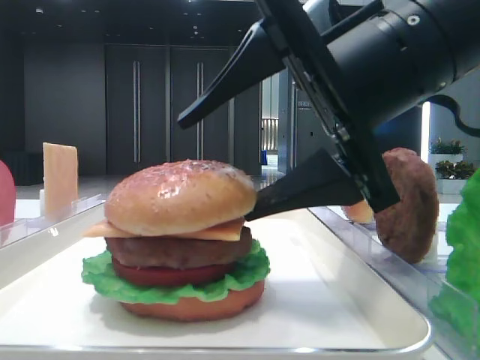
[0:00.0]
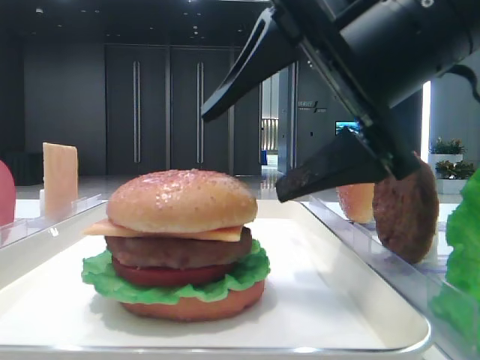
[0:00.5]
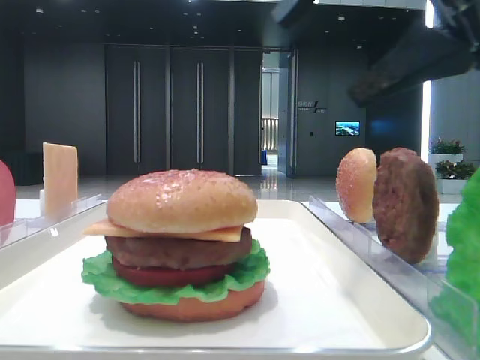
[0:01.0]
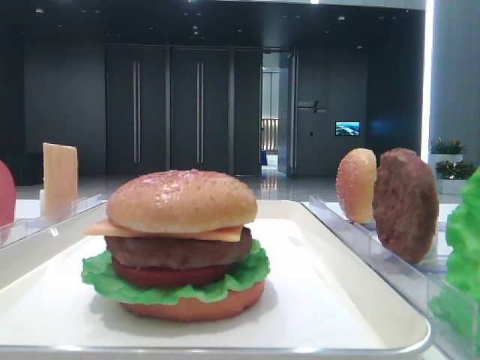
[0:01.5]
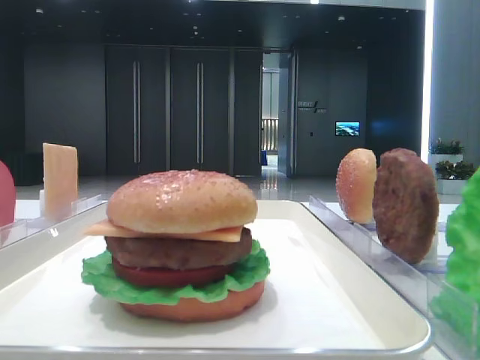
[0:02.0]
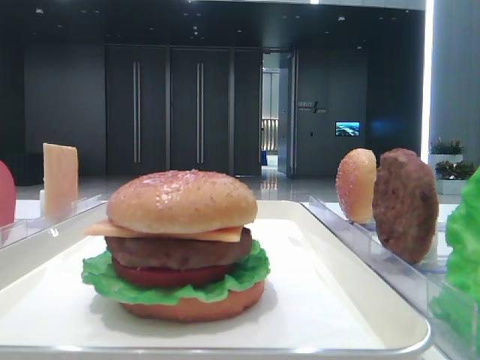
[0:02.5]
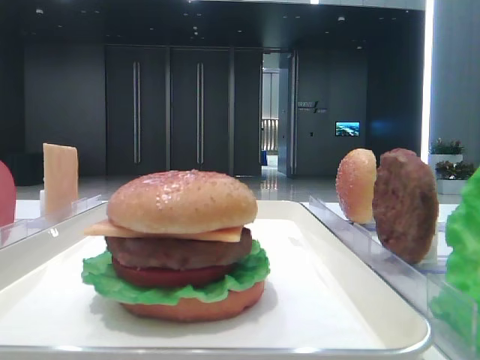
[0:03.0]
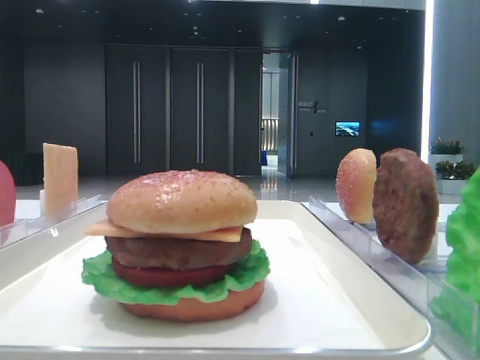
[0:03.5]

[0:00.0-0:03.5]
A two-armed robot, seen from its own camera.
0:00.0 to 0:02.0: The right gripper moves to the right, upward and backward, approximately 25 cm.

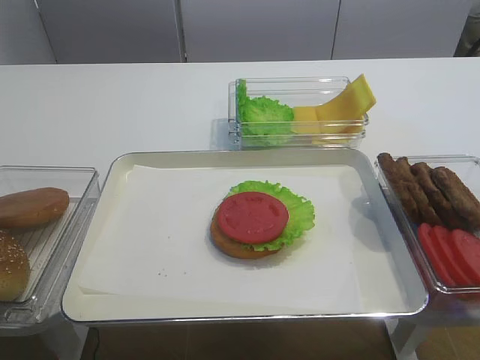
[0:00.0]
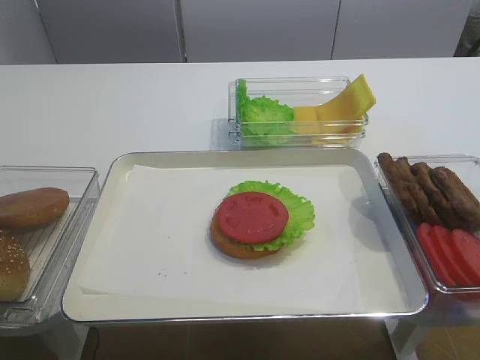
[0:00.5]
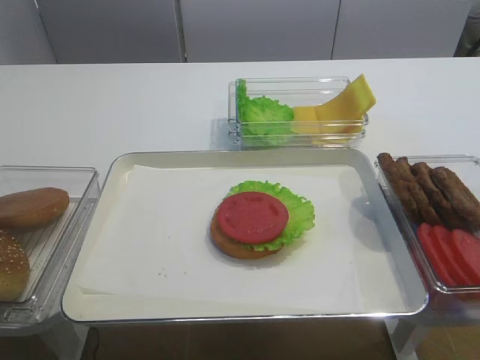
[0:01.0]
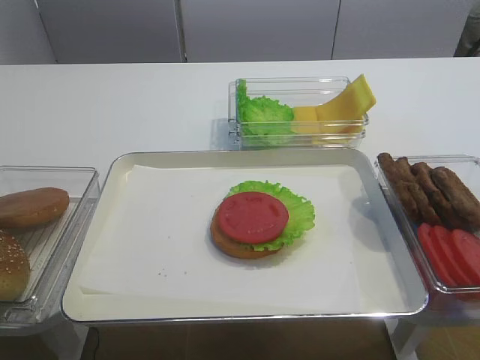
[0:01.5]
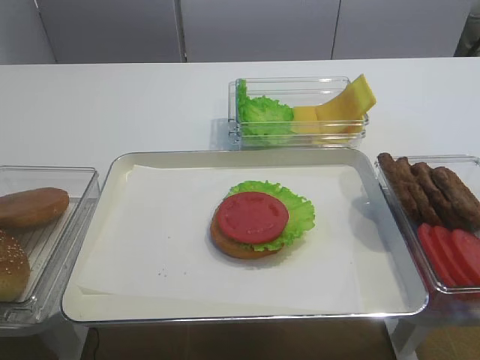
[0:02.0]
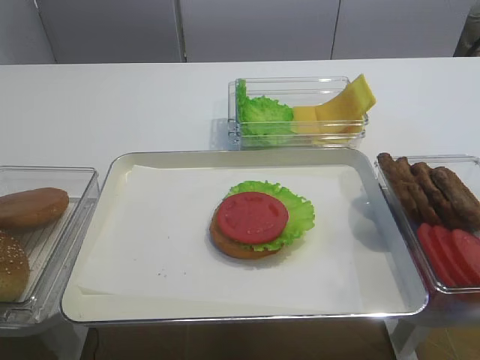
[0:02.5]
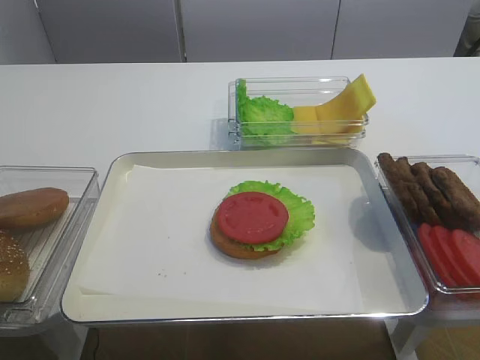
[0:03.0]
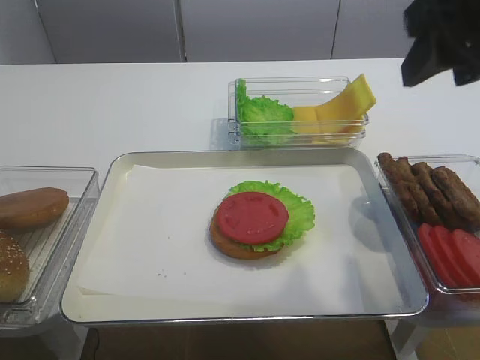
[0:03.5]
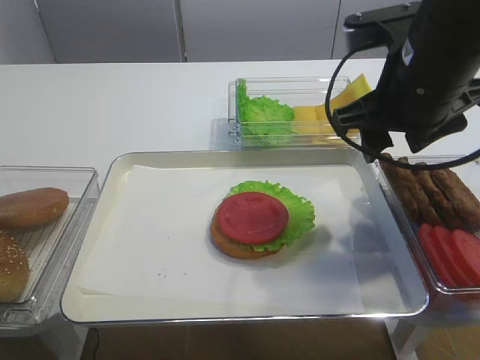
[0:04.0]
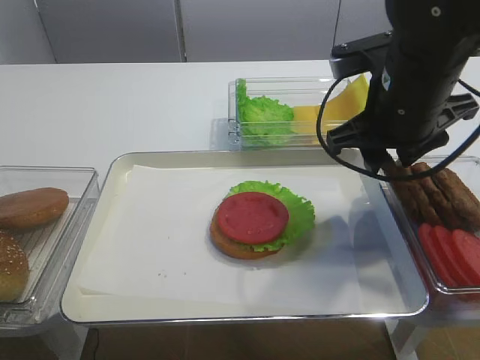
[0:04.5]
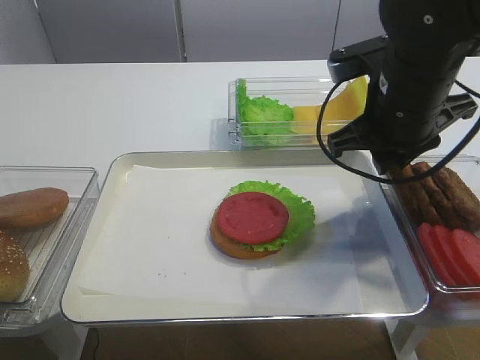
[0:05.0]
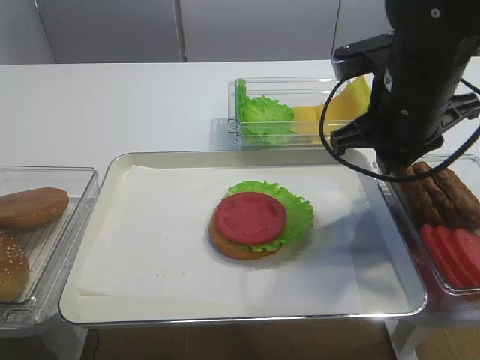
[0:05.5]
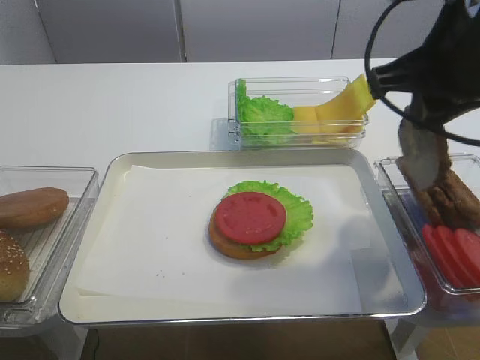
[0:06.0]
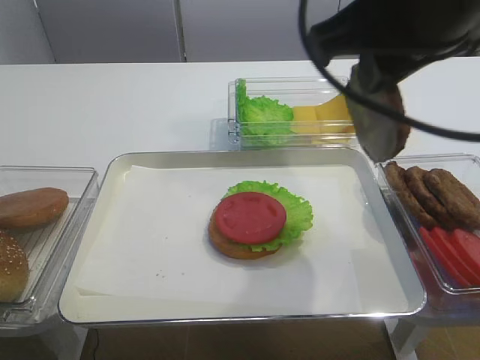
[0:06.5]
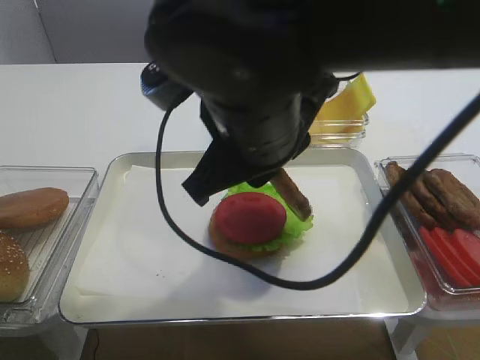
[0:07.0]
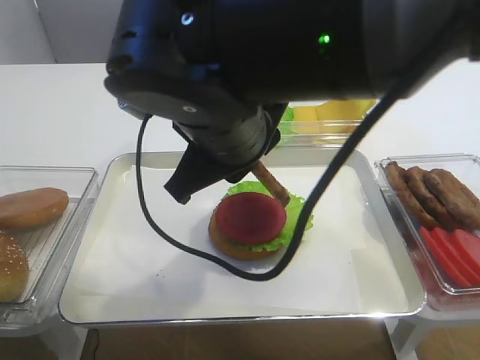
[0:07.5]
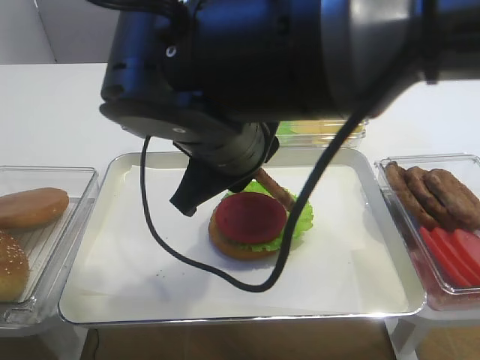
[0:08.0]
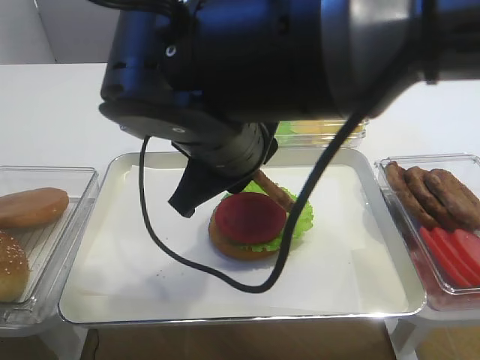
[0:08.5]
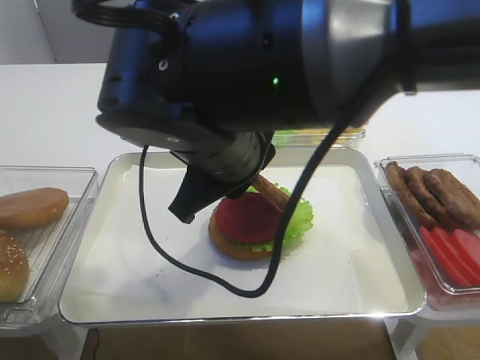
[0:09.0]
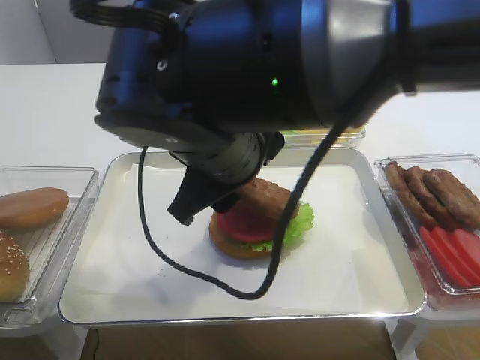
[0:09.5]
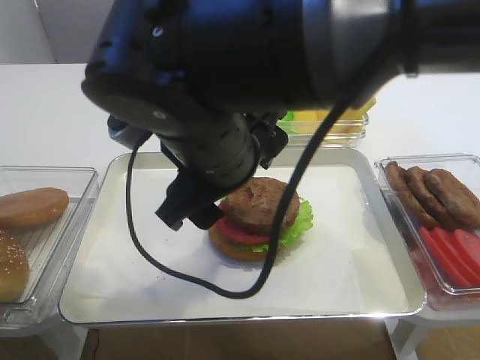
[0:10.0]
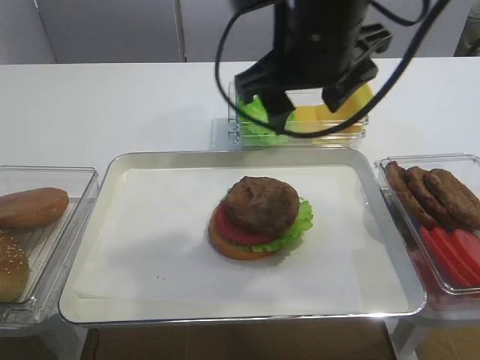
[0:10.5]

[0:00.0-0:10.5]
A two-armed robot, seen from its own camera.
Step, 0:00.0 to 0:05.5: Pick up the cutlet with the right gripper.
Step, 0:06.0 to 0:09.5: Place the cutlet on the tomato slice with the right gripper.
0:02.0 to 0:04.0: The right gripper is displaced forward and to the left by approximately 30 cm.
0:04.0 to 0:06.5: The right gripper moves upward and backward, about 10 cm, and closes its fingers.
0:06.5 to 0:08.5: The right gripper goes approximately 15 cm to the left and downward.
0:08.5 to 0:10.5: The right gripper shifts some 10 cm to the right, upward and forward, and opens its fingers.

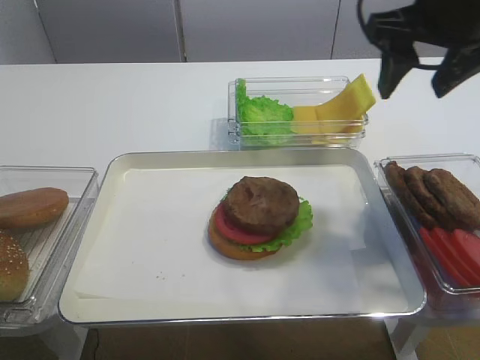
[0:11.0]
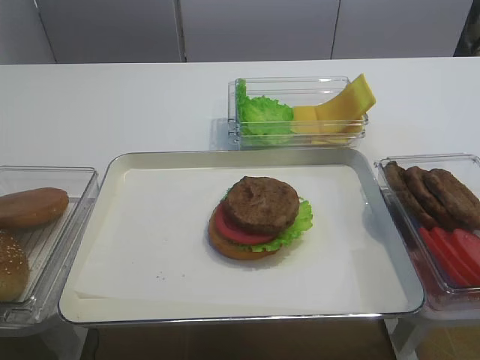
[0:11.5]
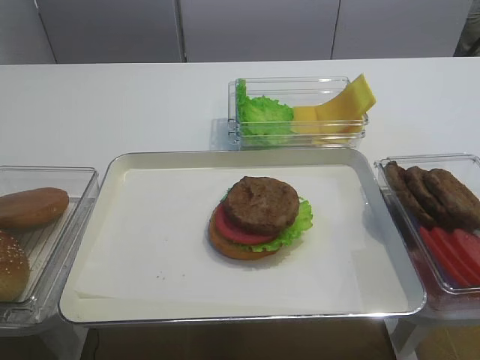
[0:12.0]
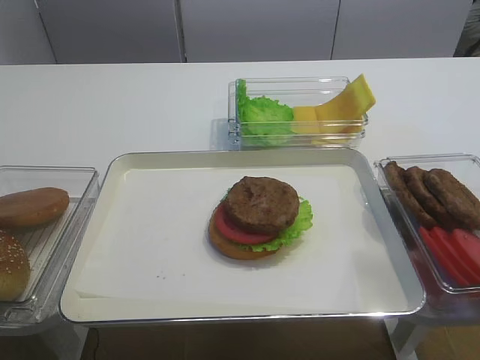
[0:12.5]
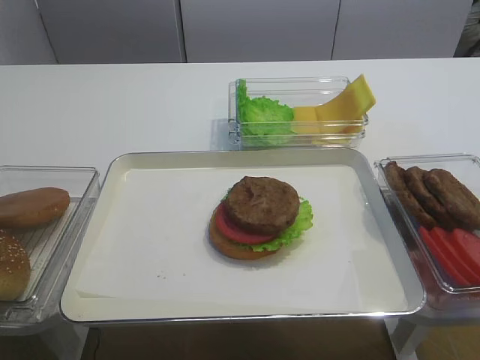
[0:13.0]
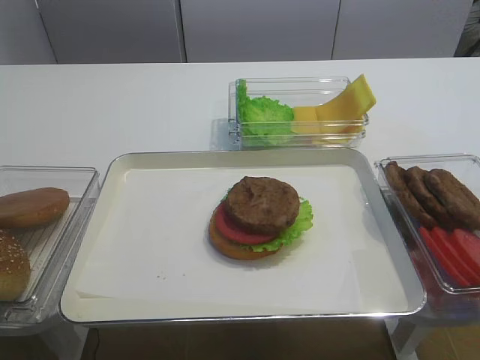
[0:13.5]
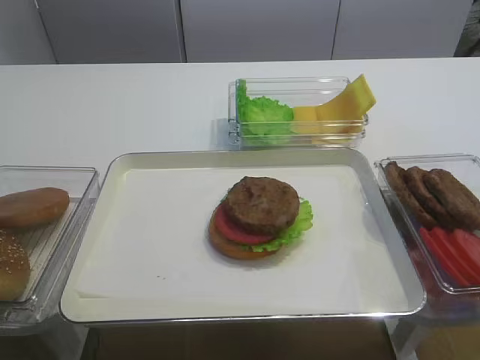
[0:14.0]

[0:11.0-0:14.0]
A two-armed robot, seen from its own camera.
0:11.0 to 0:12.5: The right gripper travels backward by some 30 cm.

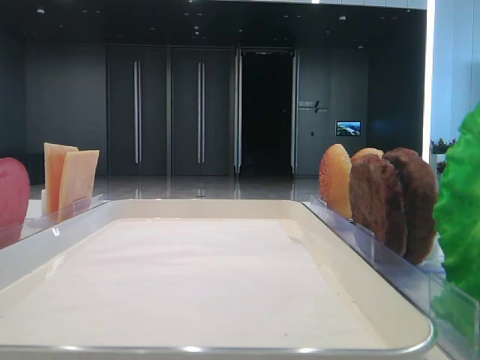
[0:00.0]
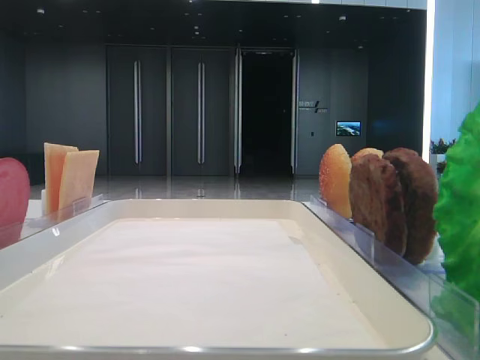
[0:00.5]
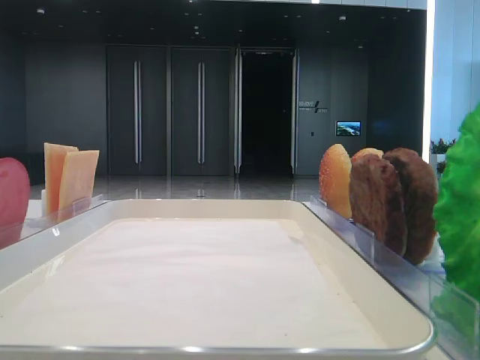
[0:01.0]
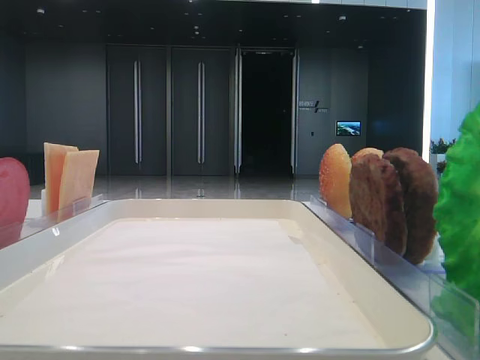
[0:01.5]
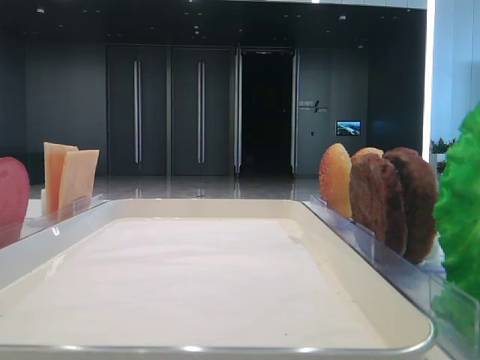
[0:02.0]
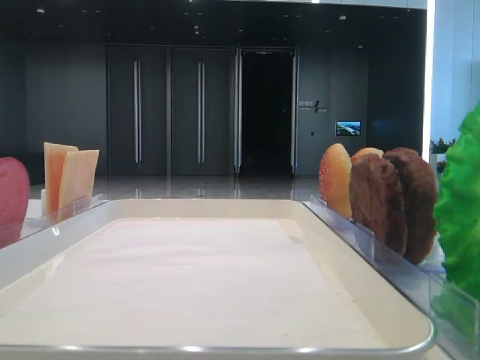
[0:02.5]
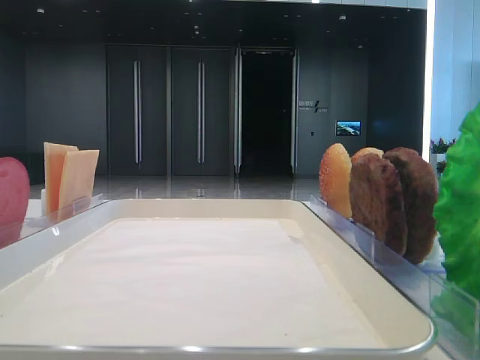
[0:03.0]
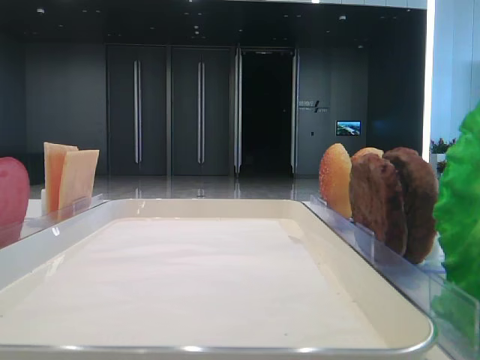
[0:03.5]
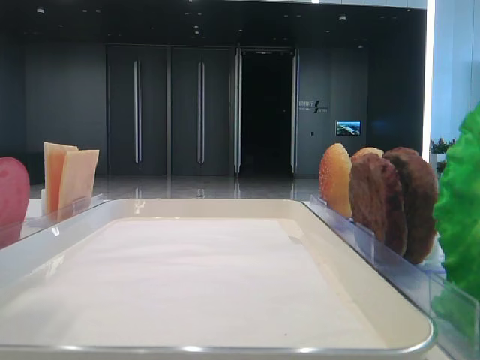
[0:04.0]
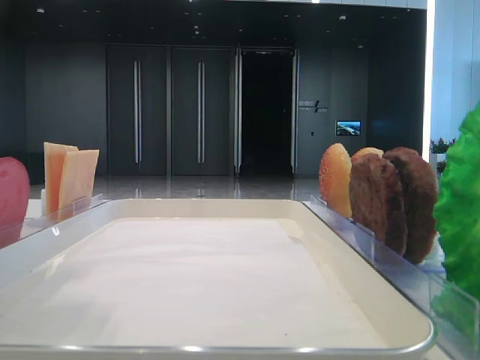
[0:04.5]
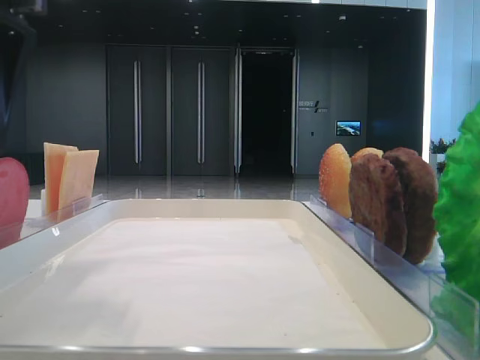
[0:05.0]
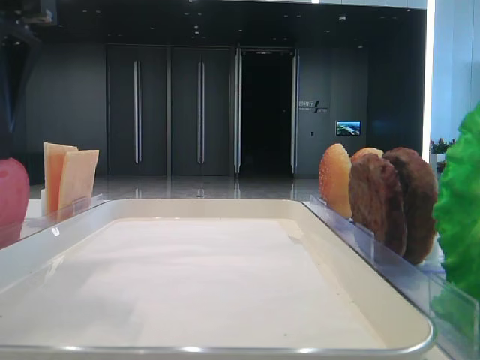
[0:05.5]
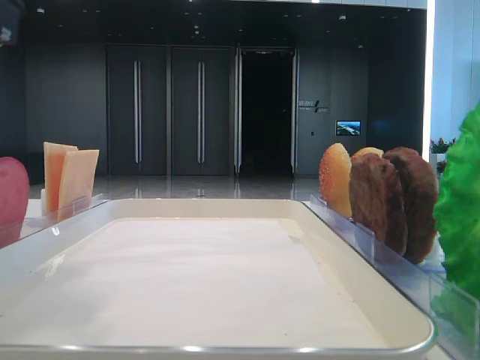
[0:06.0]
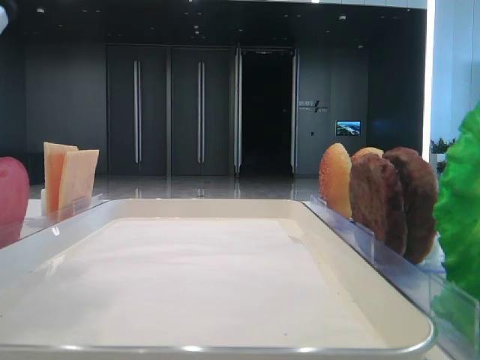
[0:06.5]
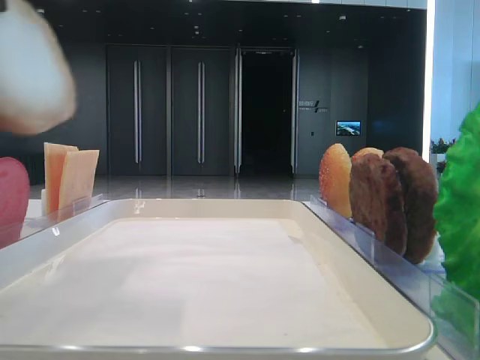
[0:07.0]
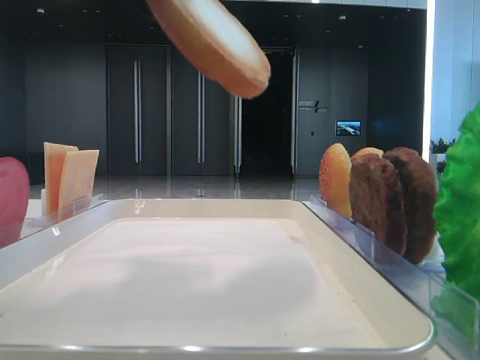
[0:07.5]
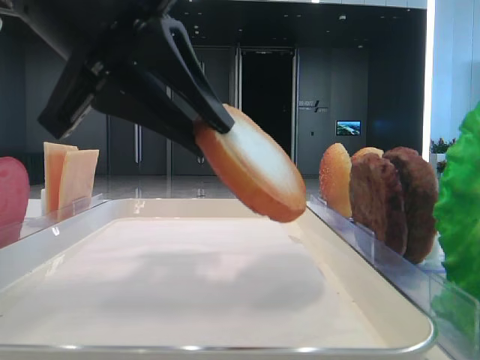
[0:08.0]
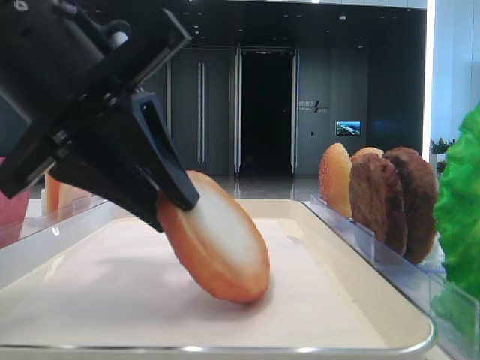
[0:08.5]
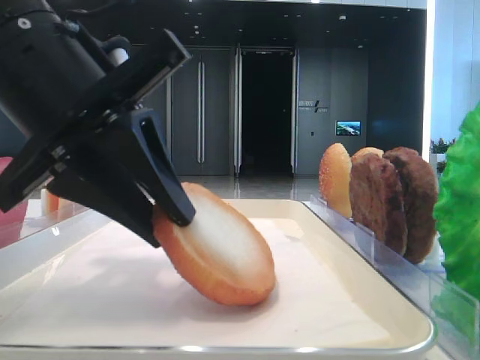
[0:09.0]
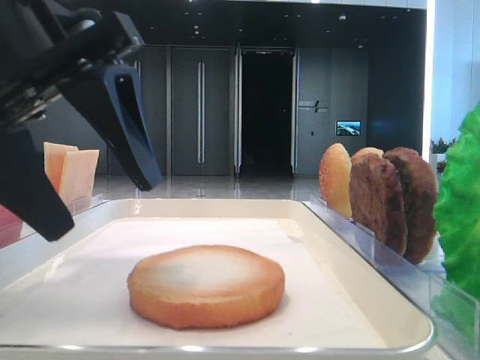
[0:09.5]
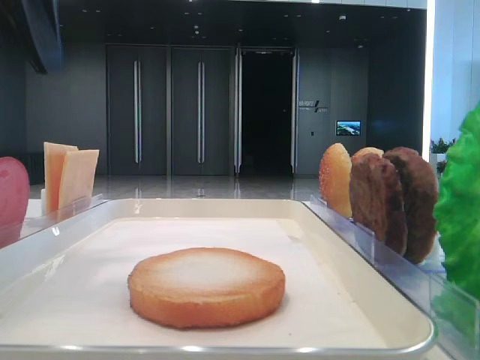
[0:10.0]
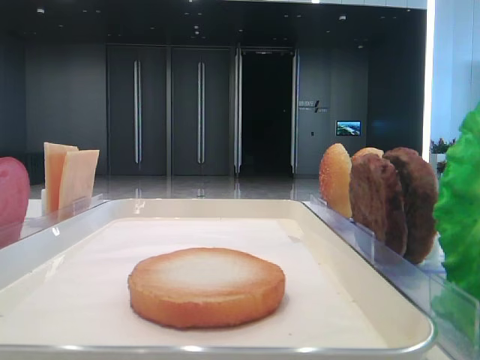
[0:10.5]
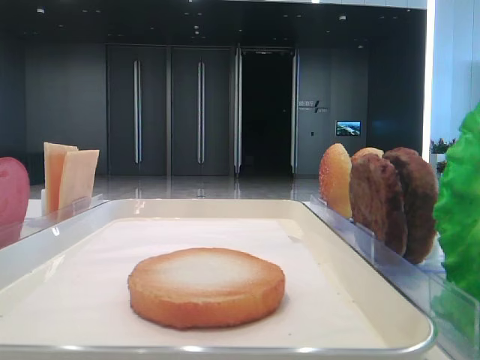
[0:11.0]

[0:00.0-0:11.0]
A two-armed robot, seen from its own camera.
Step, 0:06.5 to 0:09.0: Place the bread on the tray with the left hand.
0:03.5 to 0:05.5: The left gripper shifts some 15 cm to the right and downward.
0:05.5 to 0:07.5: The left gripper shifts some 5 cm upward, and closes.
0:07.5 to 0:09.0: The left gripper is displaced downward by roughly 15 cm.
0:09.0 to 0:11.0: The left gripper goes approximately 20 cm to the left and upward, and opens its fingers.
